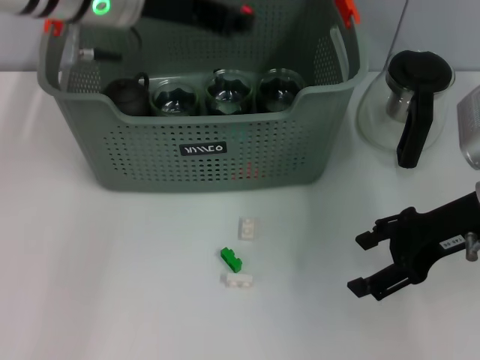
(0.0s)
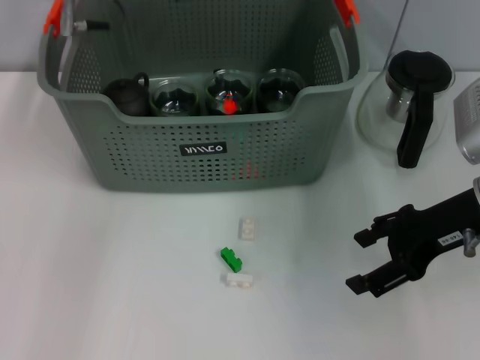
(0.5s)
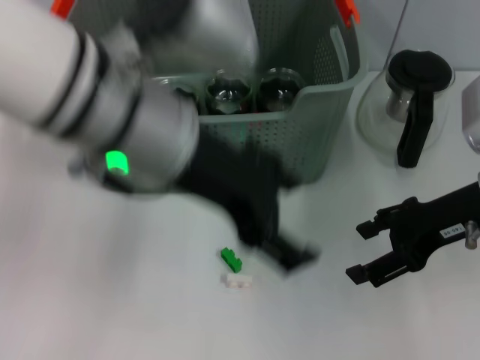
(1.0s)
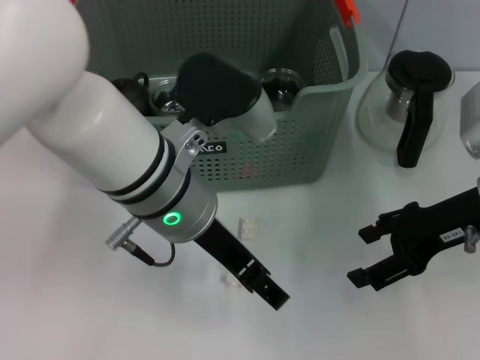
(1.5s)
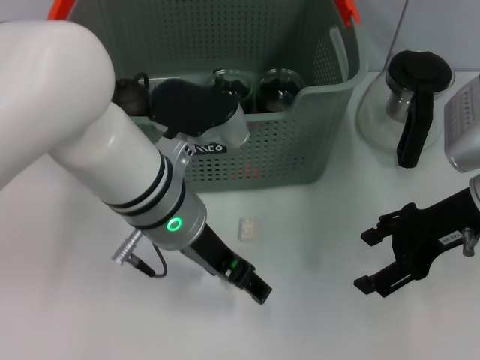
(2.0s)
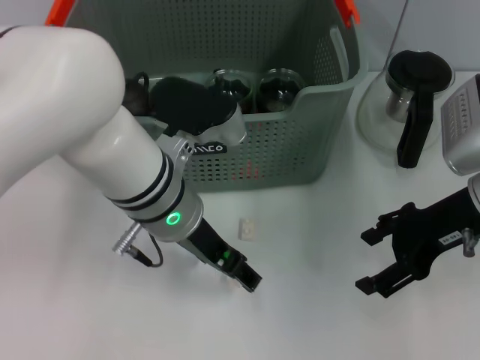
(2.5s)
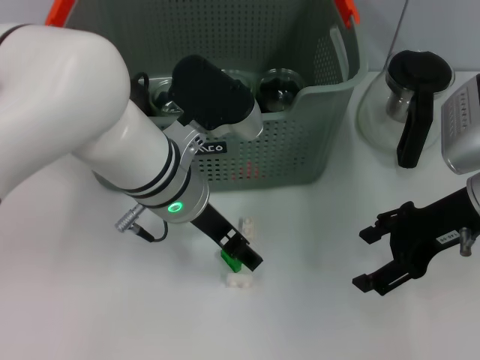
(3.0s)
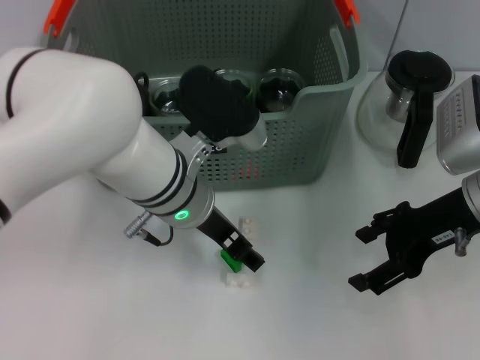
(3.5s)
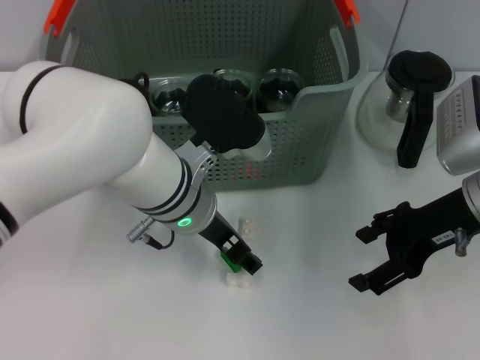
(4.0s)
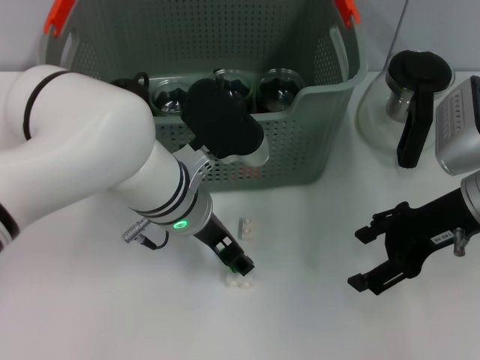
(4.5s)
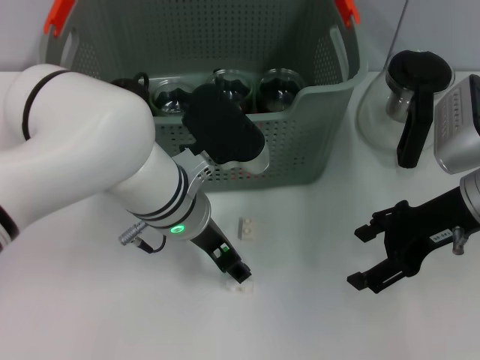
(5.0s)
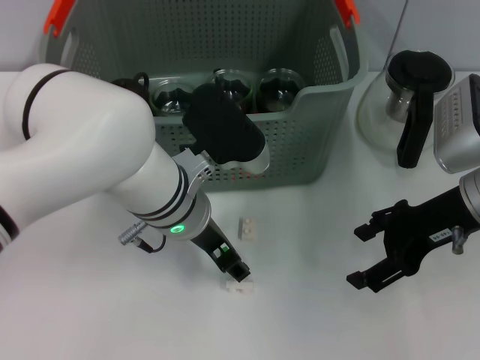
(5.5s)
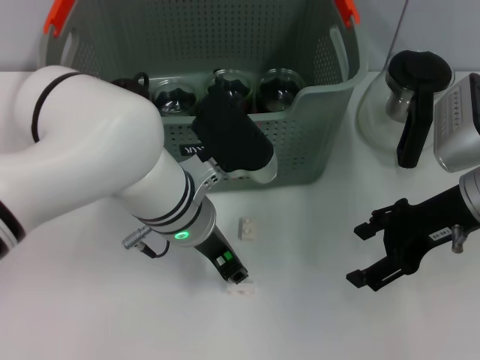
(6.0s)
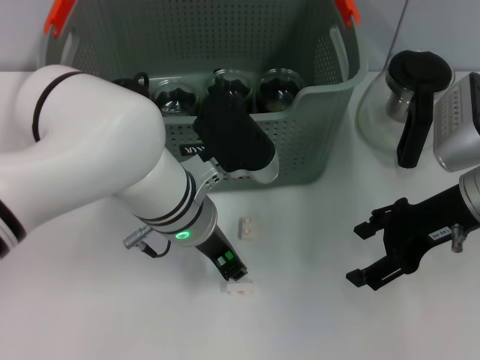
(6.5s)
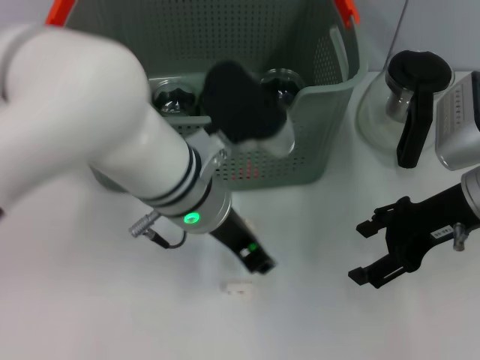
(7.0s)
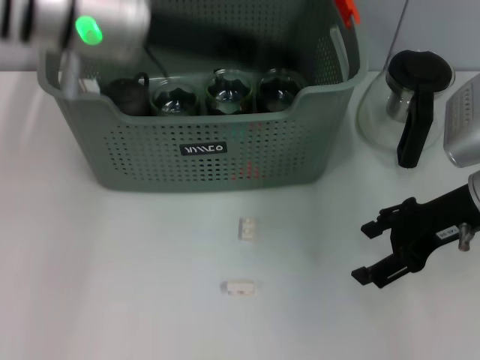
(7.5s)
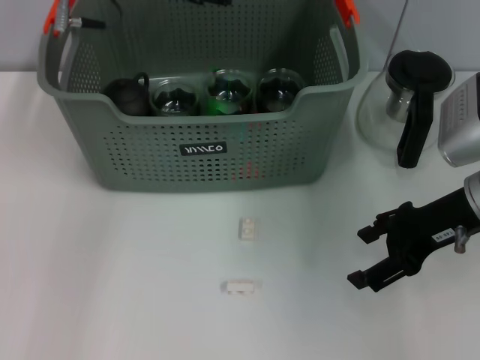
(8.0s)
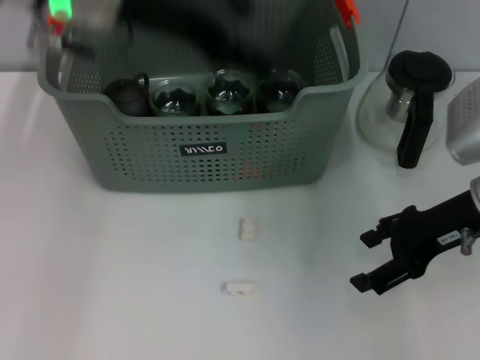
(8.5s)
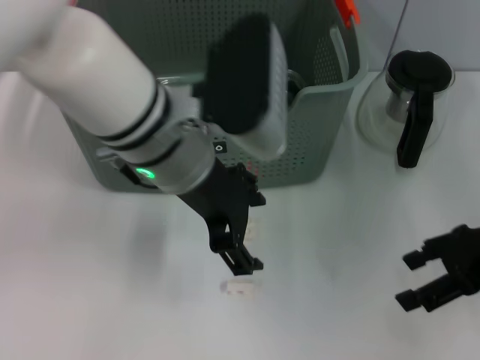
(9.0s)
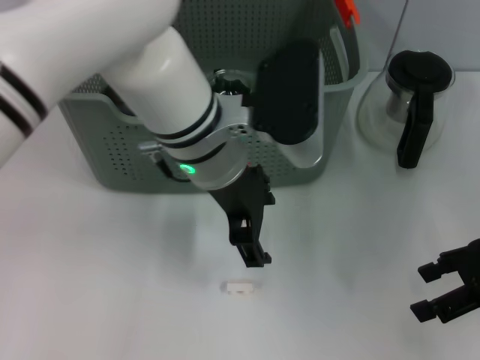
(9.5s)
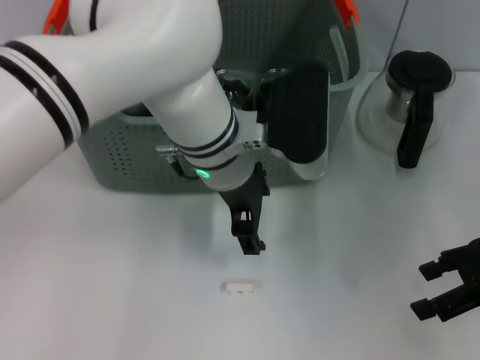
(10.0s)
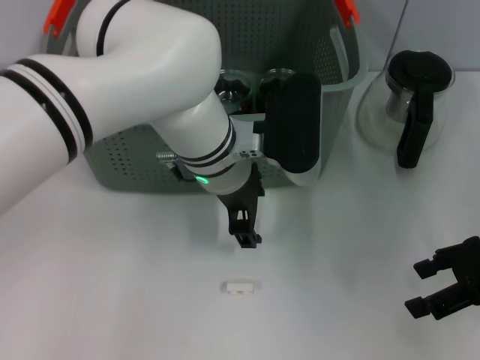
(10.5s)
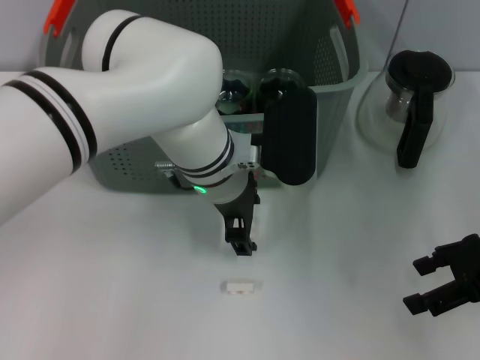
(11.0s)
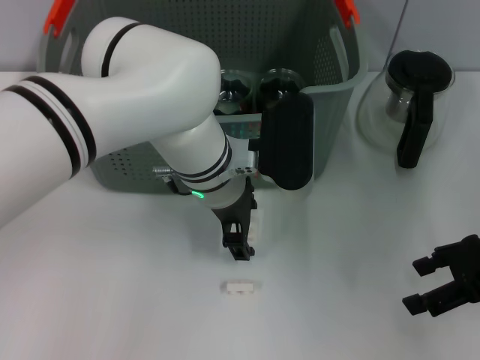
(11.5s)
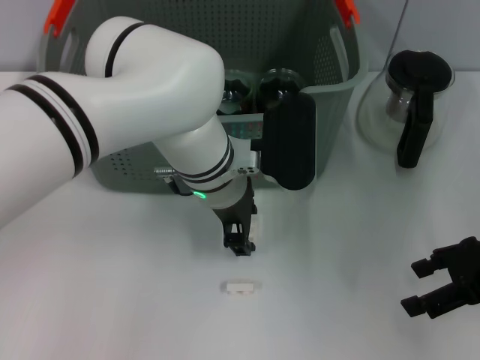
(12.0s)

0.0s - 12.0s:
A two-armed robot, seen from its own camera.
Task of the whole recording: pick up the teacup on the table and place it into the storage bin, pick up the block on the table and place it into the storage bin.
Step, 1.0s - 6.5s: Grasp the green block with left gripper.
Step, 7.0s - 8.0s: Place the green block in the storage box with left gripper.
0.0s - 2.0s: The left gripper travels downward, backward and to the right by some 15 cm, and opens.
4.0s - 6.0s: The grippers move only a little.
6.0s - 8.0s: The left gripper goes some 20 cm upward, forward and to the left.
8.0s - 10.0s: The left gripper goes some 20 cm to the right, downward and backward, and opens; the right gripper moves to the right, approximately 10 cm.

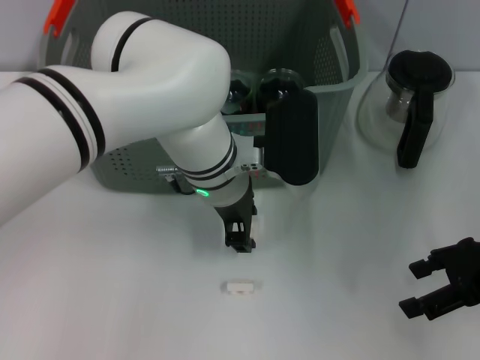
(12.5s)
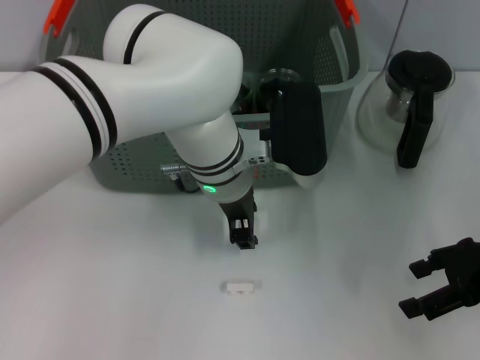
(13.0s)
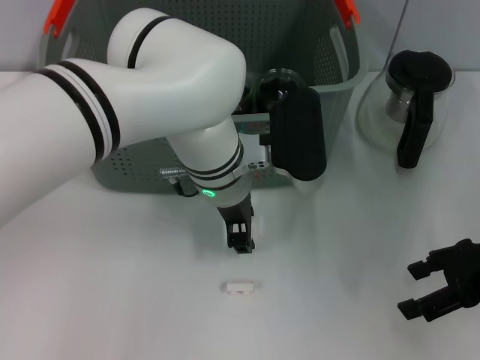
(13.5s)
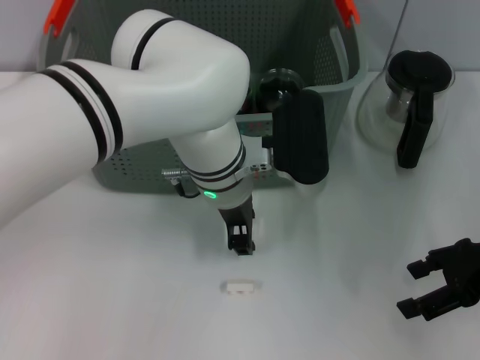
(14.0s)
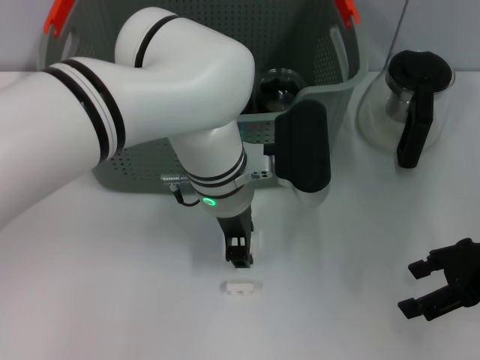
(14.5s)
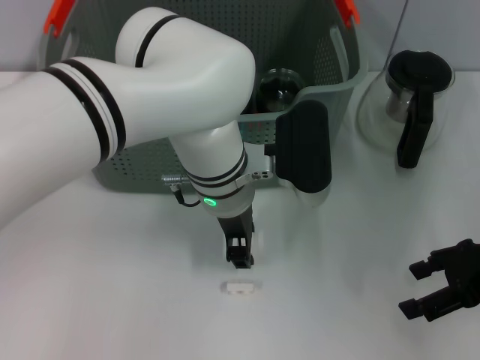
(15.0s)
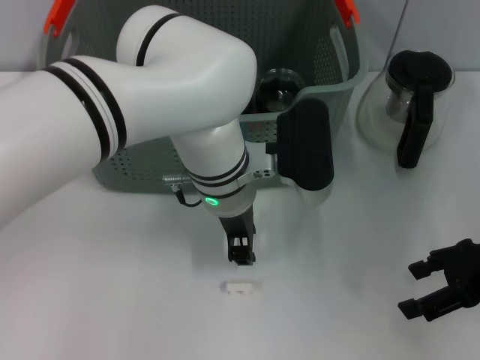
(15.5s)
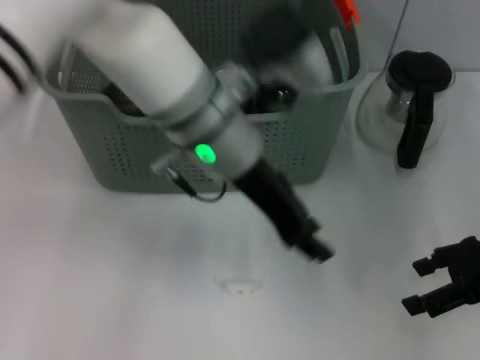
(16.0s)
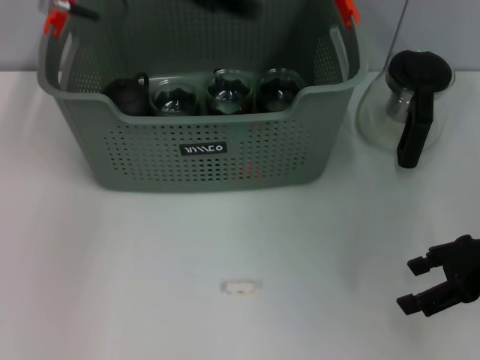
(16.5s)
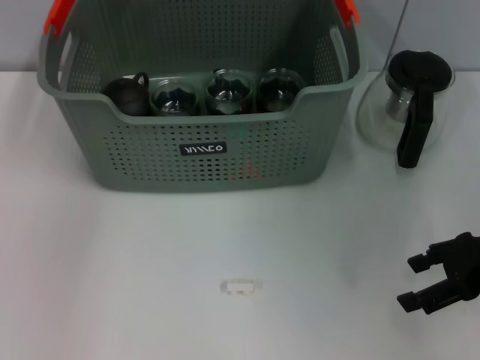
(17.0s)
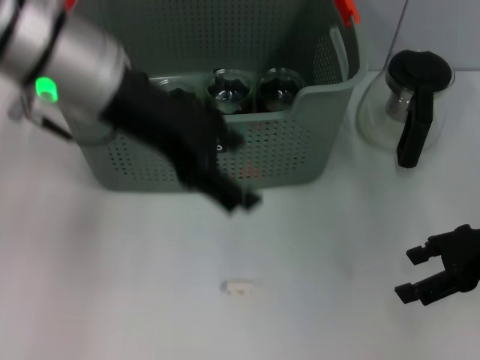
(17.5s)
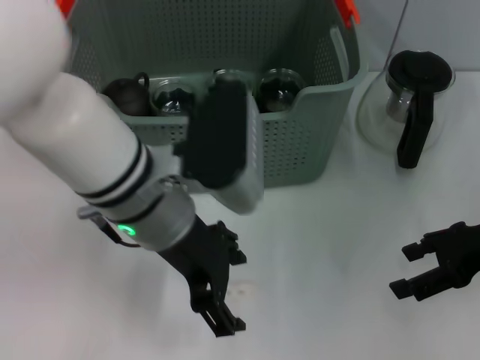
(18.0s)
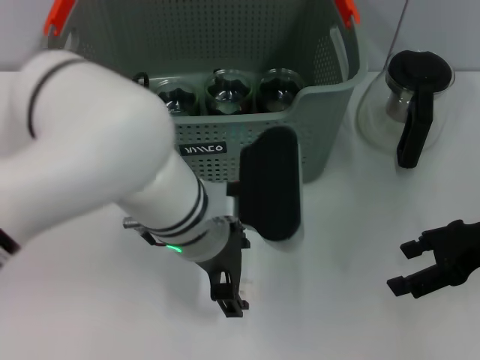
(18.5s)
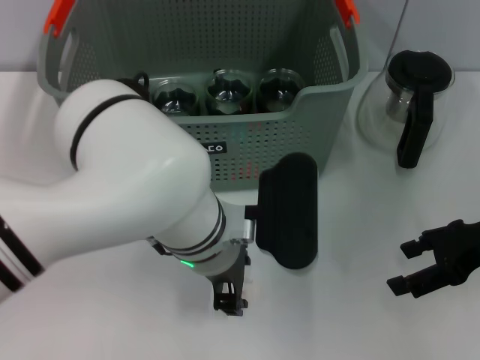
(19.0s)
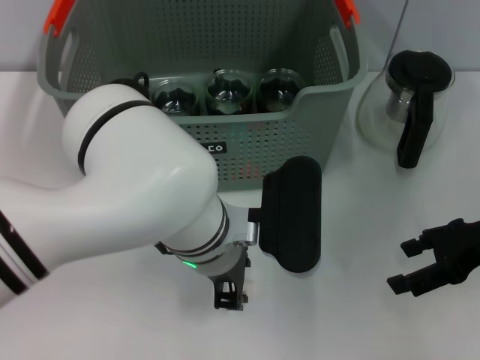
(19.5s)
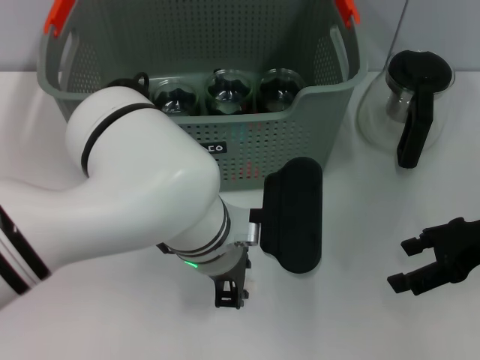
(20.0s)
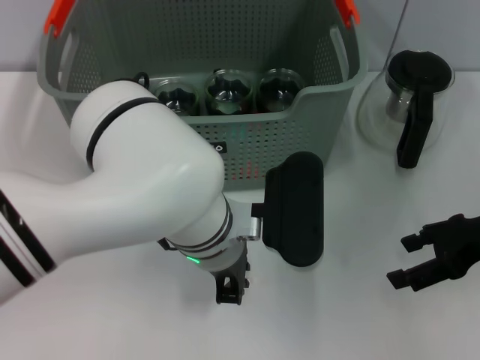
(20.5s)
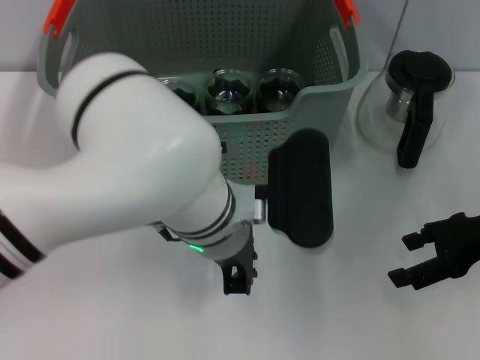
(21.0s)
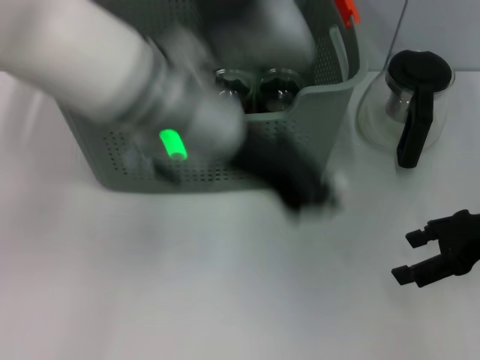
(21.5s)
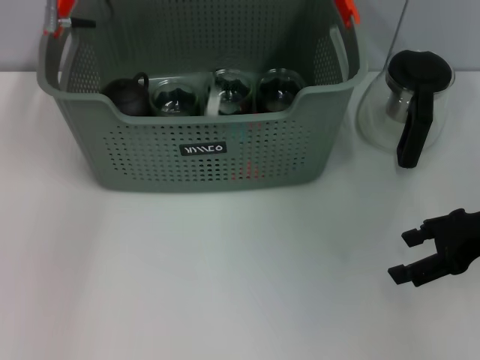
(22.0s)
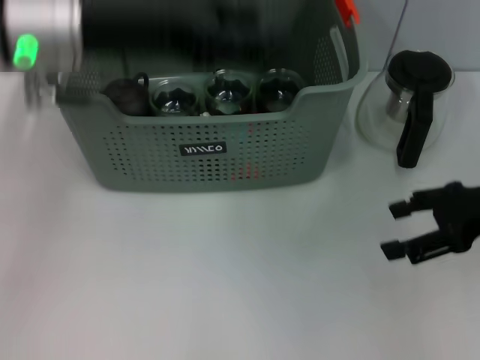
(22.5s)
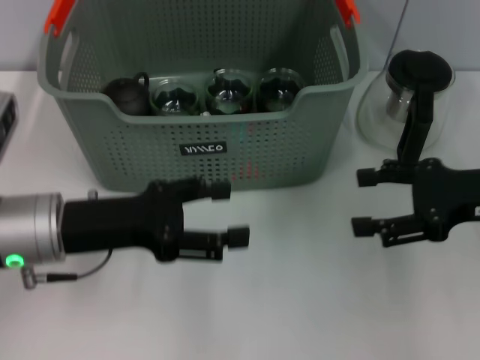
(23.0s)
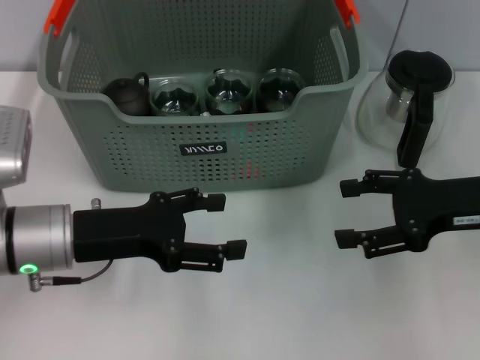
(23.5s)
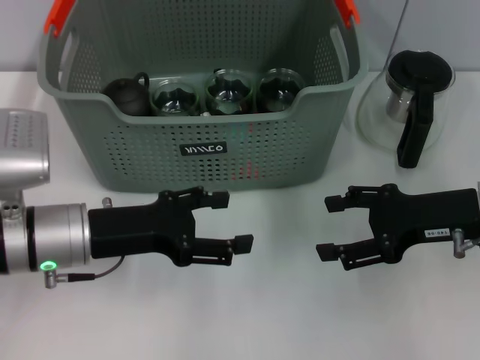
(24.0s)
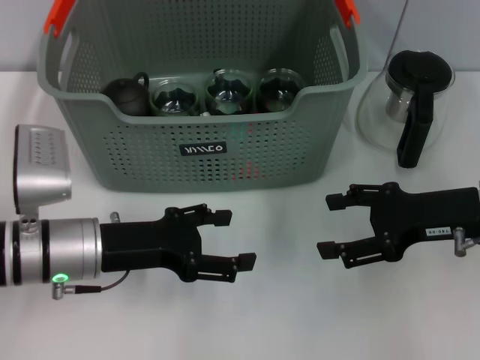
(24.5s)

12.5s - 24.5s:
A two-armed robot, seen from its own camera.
Task of the whole recording: pick up the teacup on the table and place it into the storage bin, pick up the block on the table and place it into the storage bin.
Step, 12.5s - 15.5s: Grasp the white block with left gripper.
Step, 16.0s - 17.0s: Place the white block in the storage box with left gripper.
Step, 17.5s - 20.5s: Grasp the white block with left gripper.
Step, 21.0s - 22.0s: Place the white block in the storage box with left gripper.
12.5s - 14.5s: The grippers stay close to where they were, moving slightly.
14.5s - 16.5s: The left gripper shifts approximately 25 cm upward, to the left and forward.
16.5s - 18.5s: The left gripper travels downward, backward and to the right by roughly 25 cm, and opens its fingers.
18.5s - 20.5s: The left gripper closes.
20.5s - 22.5s: The left gripper is displaced to the left and upward by some 20 cm, and opens.
22.5s - 24.5s: The left gripper heads downward, covering about 20 cm, and opens up. The right gripper moves approximately 5 cm.

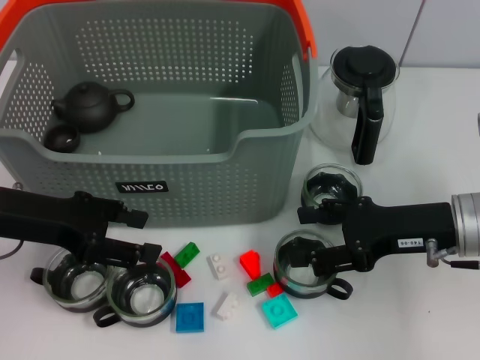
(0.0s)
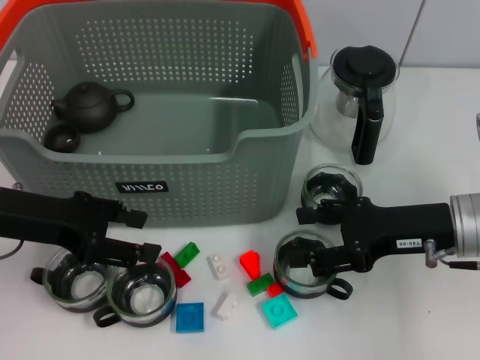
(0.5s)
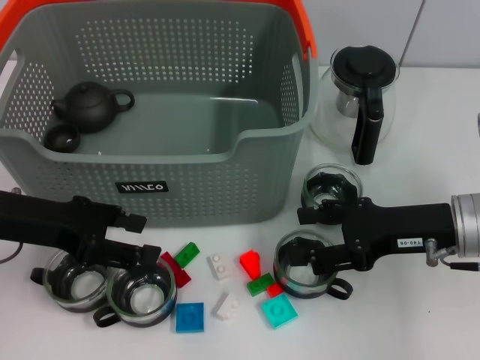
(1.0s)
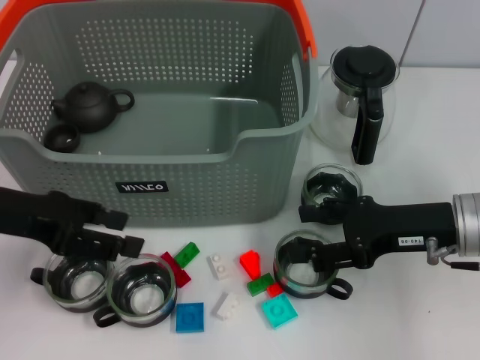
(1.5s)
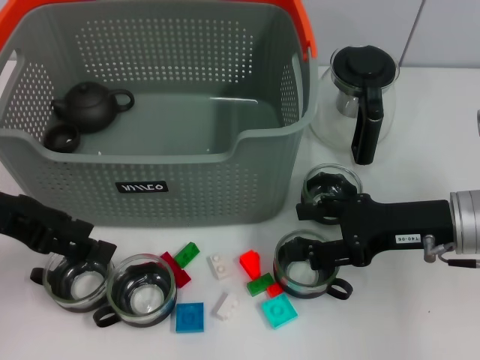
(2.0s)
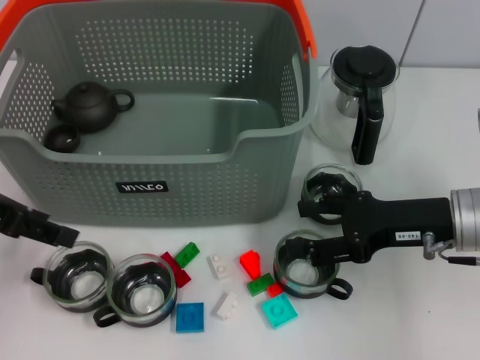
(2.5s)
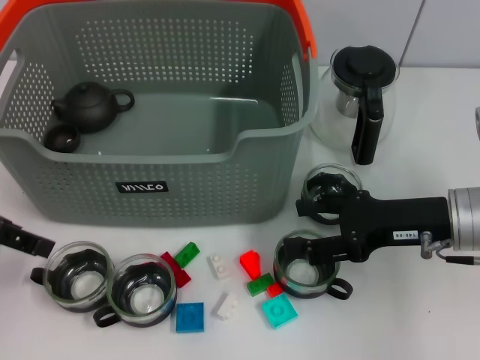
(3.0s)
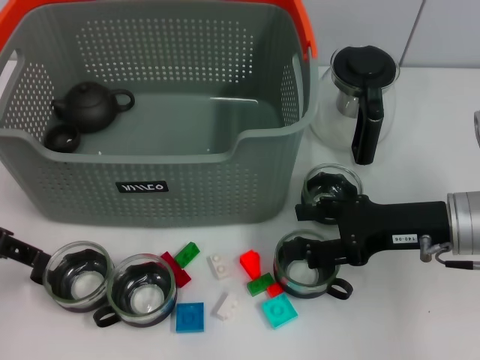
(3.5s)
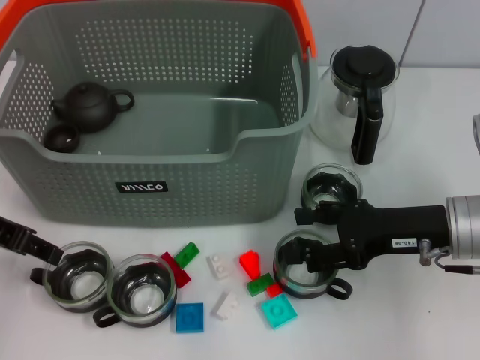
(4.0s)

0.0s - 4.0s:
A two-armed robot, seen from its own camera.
Task of the whole recording: pick up the teacup on the table and place it into the storage bin, pick up the block on the table and place it into the storage bin.
0.0s - 2.0s: The left gripper heads upward, covering roughly 5 cm.
